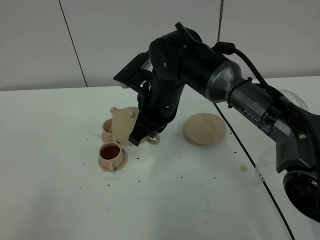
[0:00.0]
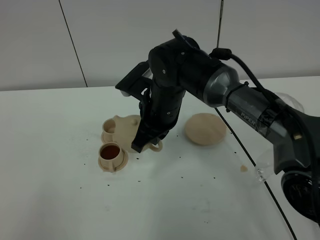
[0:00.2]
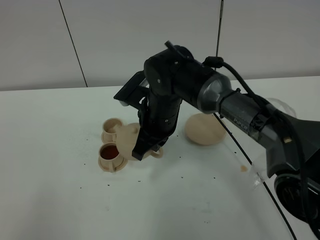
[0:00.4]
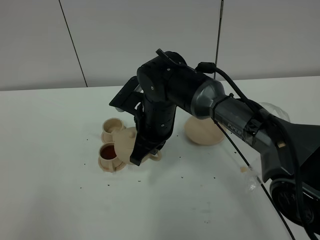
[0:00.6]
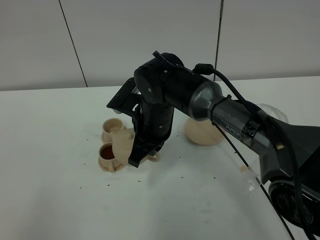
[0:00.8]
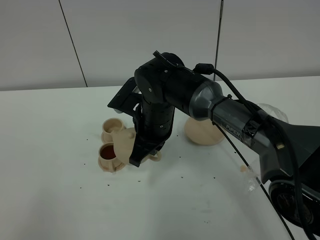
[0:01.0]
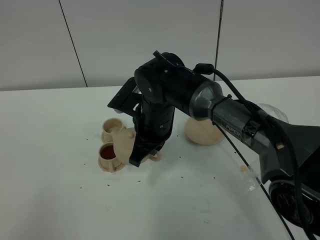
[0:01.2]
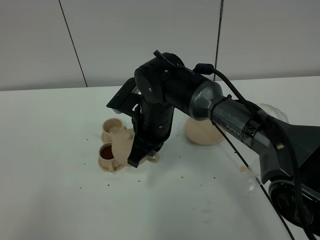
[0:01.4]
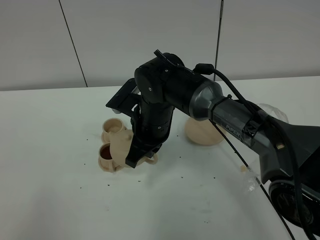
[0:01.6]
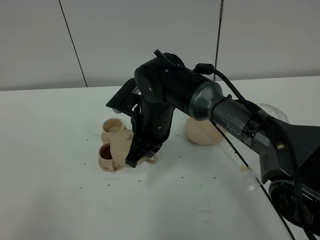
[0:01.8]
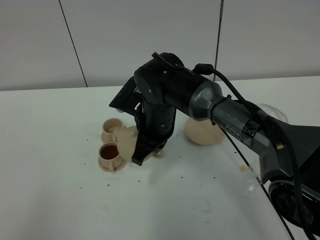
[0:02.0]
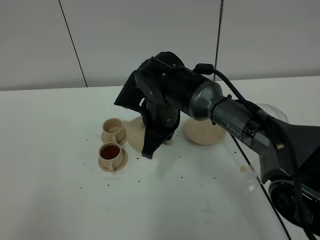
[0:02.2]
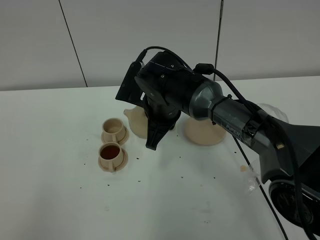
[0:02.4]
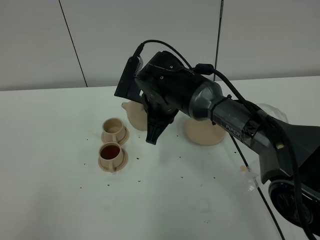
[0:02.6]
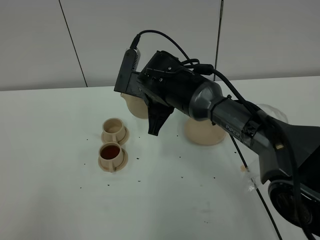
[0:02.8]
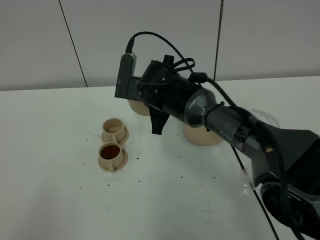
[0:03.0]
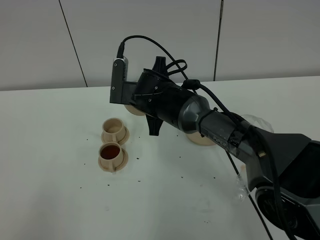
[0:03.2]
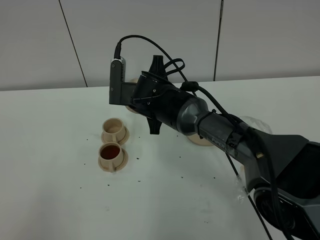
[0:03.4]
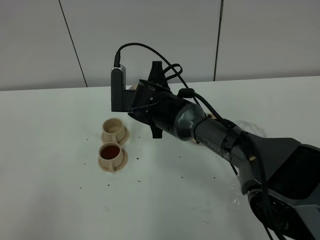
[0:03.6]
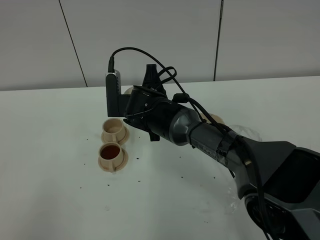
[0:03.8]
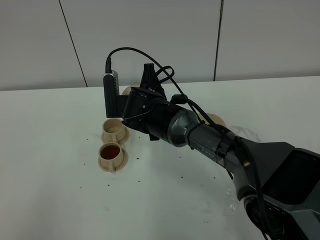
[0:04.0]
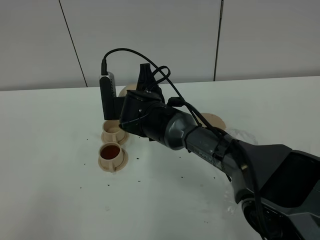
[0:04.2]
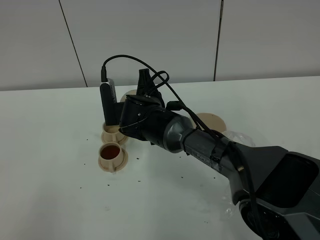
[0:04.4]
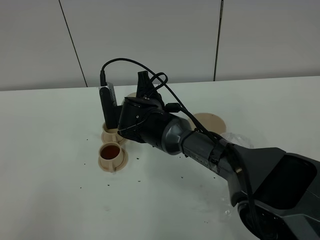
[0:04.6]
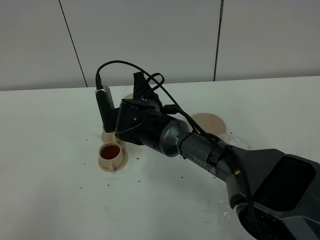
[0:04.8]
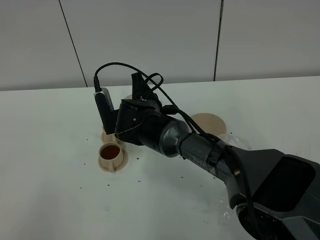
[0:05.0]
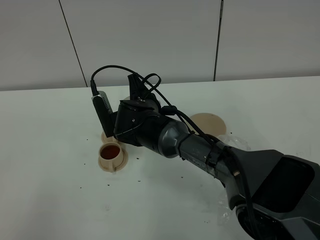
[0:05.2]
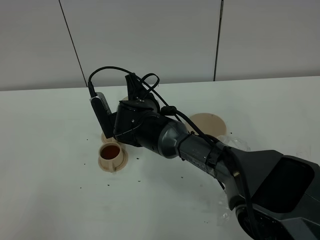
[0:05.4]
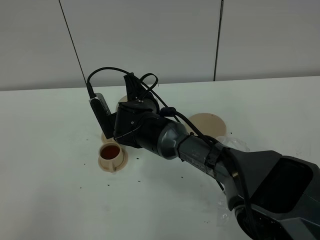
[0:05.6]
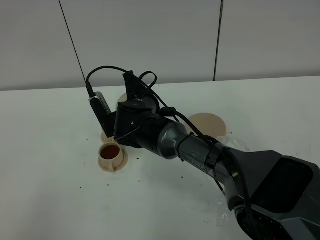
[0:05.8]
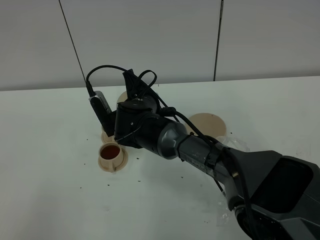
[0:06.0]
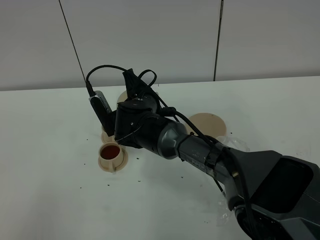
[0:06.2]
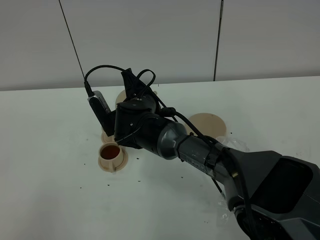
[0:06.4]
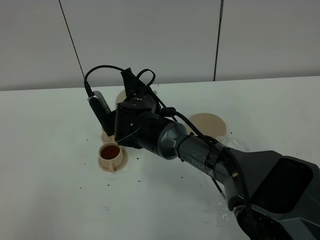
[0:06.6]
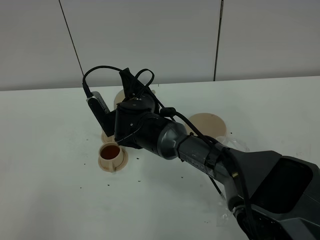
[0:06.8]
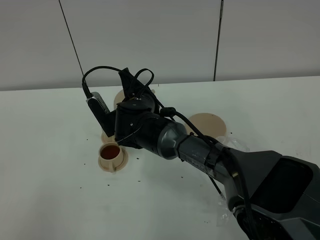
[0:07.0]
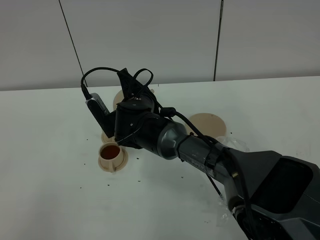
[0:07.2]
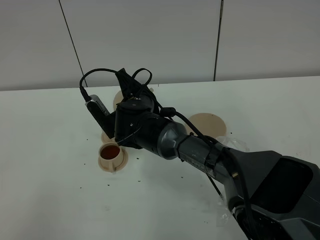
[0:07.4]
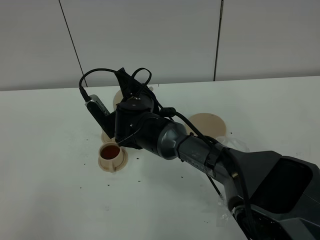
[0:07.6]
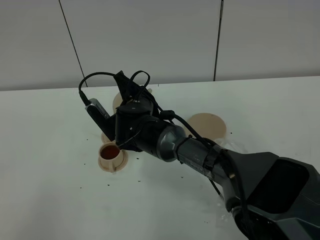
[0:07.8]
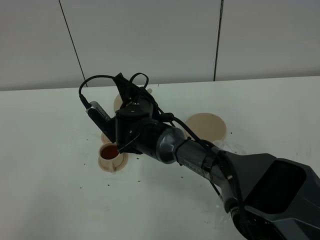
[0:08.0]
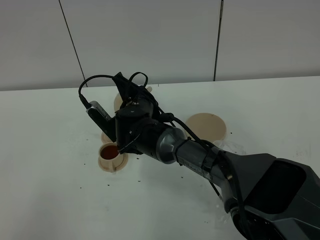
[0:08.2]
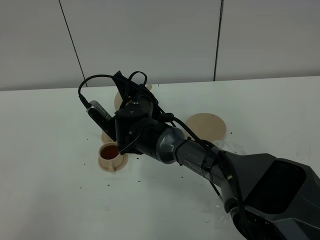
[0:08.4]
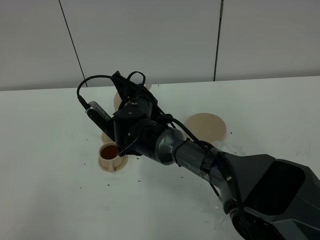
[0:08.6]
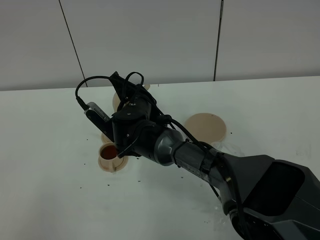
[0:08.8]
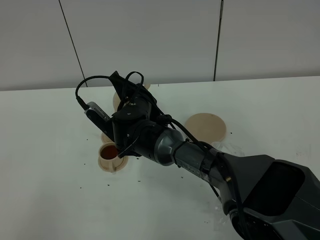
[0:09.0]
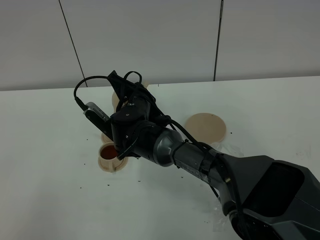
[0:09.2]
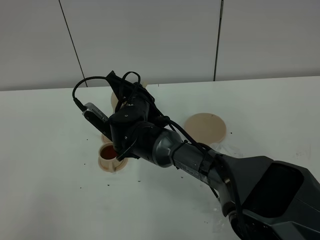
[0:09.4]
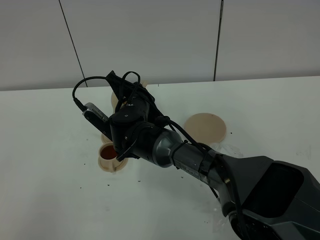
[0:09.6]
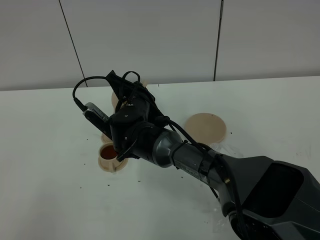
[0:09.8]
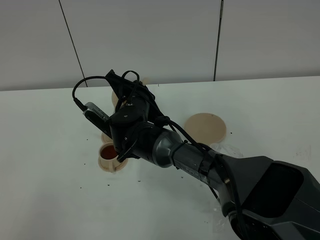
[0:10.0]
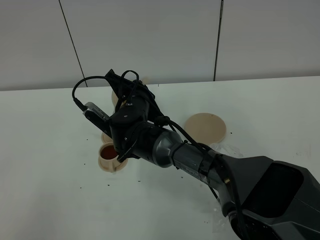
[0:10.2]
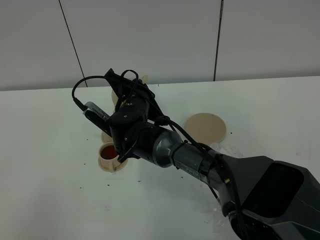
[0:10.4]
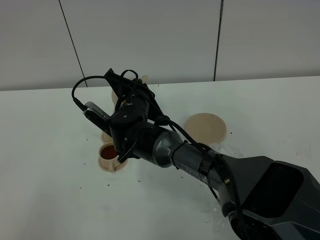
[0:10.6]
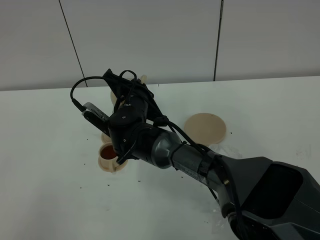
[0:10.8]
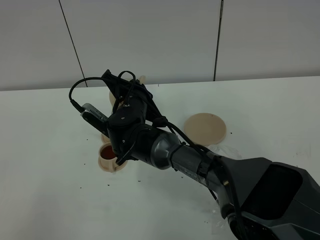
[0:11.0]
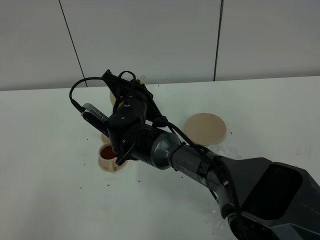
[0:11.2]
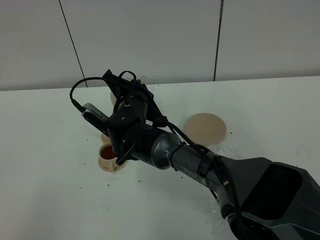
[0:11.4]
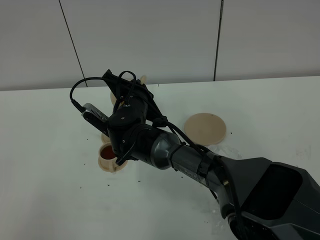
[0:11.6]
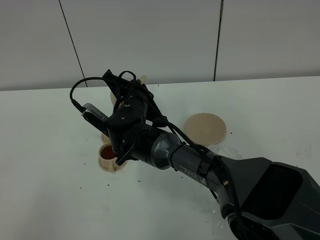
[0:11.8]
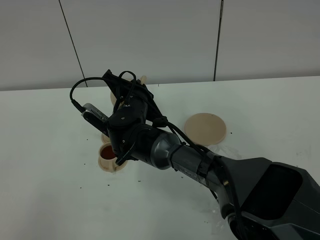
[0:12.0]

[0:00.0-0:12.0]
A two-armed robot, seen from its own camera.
Task of the whole recording: grasp the brown teapot and pour the tea into the two brown teacups one by one, put the brown teapot back in its original place.
0:00.0 to 0:01.6: The grippers make only small movements.
0:01.6 to 0:03.0: The right gripper moves forward, some 5 cm.
0:04.4 to 0:06.0: The grippers stay close to where they were, moving slightly.
0:06.0 to 0:09.0: The grippers make only small movements.
0:09.0 to 0:10.4: The grippers stay close to where they were, moving slightly.
0:10.4 to 0:12.0: Both grippers stay about where they are.

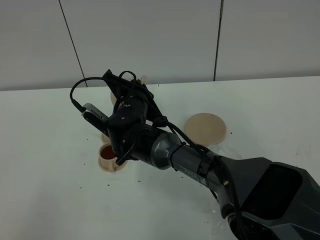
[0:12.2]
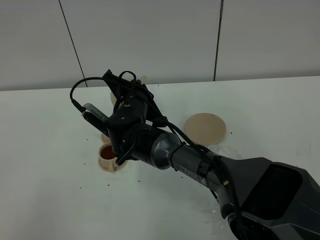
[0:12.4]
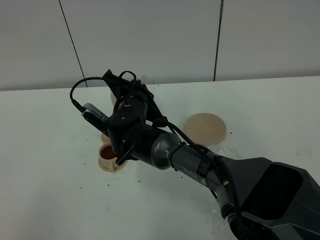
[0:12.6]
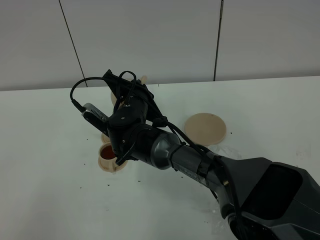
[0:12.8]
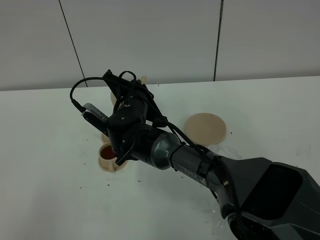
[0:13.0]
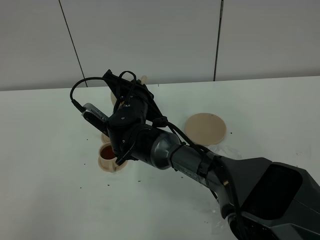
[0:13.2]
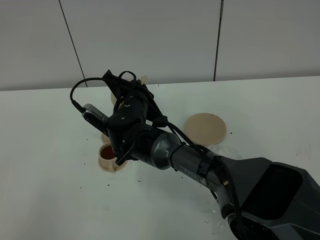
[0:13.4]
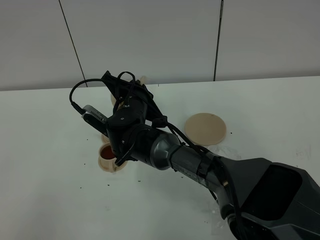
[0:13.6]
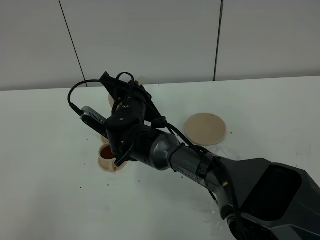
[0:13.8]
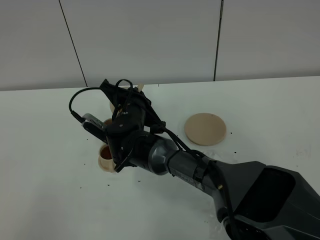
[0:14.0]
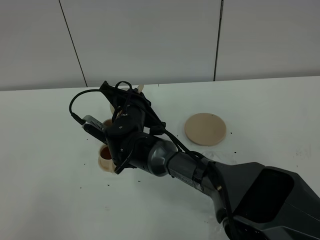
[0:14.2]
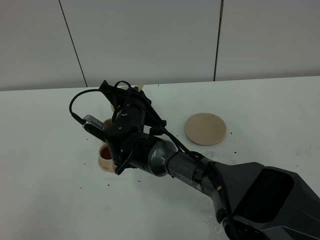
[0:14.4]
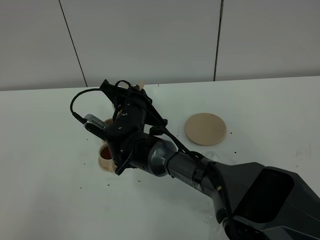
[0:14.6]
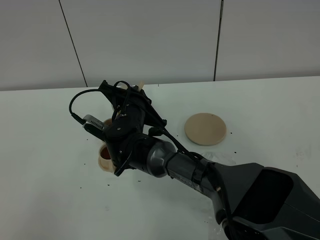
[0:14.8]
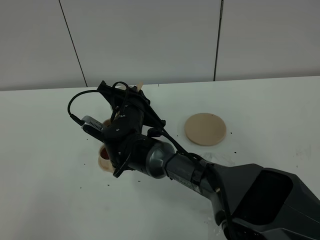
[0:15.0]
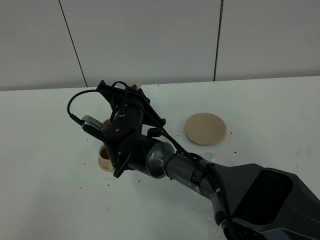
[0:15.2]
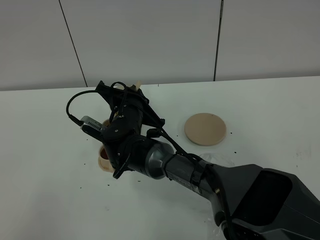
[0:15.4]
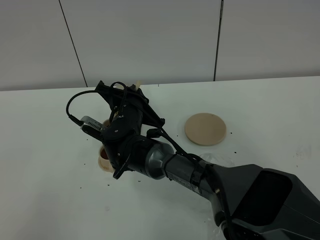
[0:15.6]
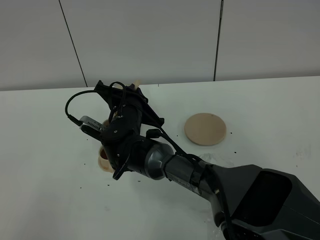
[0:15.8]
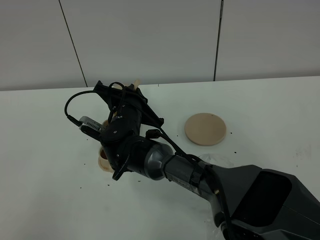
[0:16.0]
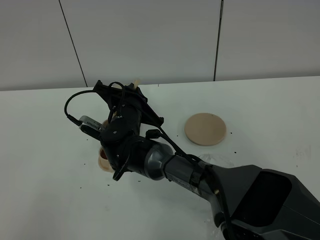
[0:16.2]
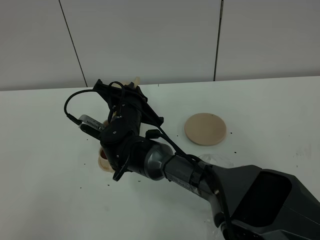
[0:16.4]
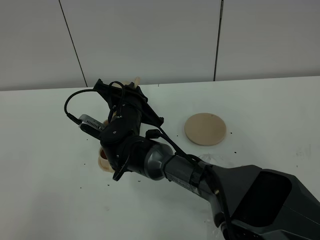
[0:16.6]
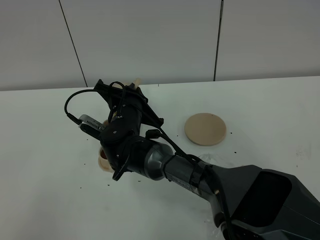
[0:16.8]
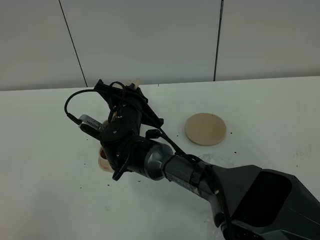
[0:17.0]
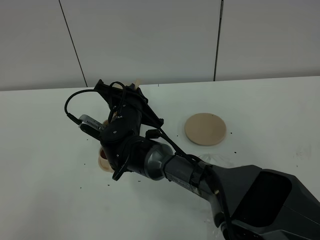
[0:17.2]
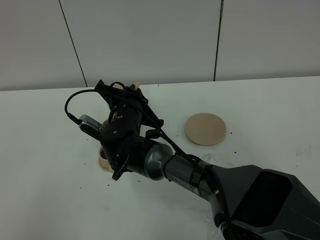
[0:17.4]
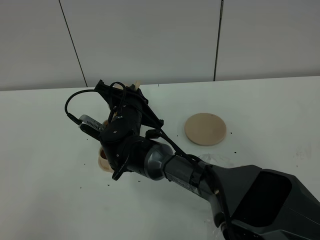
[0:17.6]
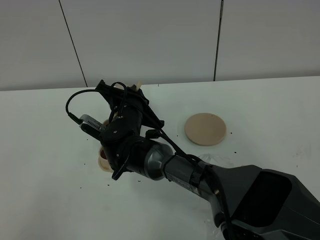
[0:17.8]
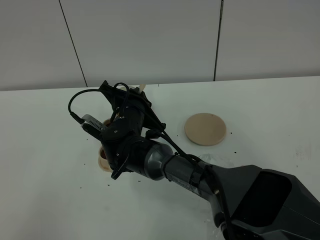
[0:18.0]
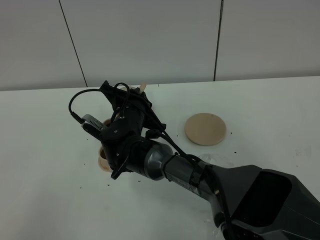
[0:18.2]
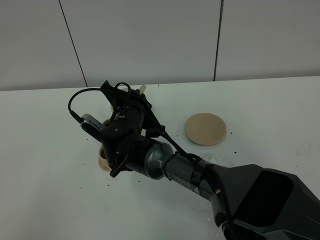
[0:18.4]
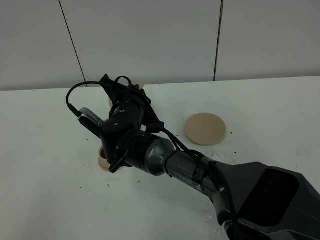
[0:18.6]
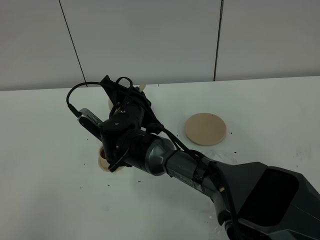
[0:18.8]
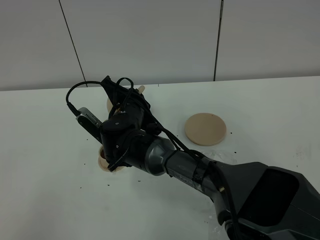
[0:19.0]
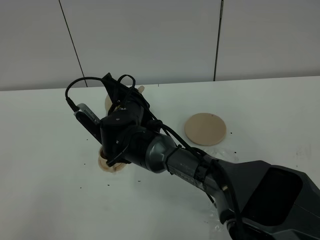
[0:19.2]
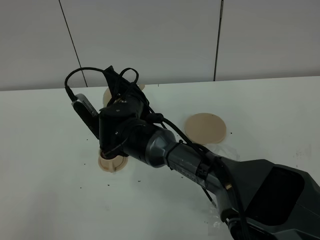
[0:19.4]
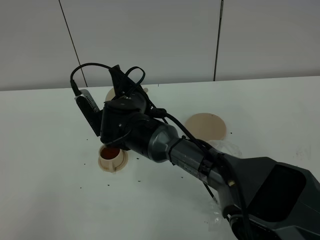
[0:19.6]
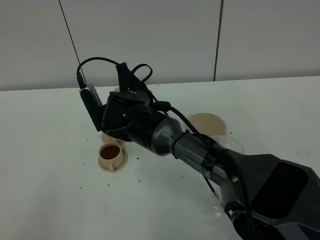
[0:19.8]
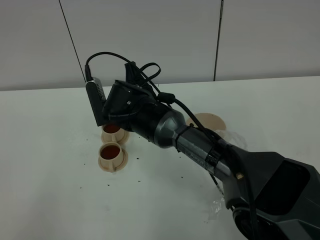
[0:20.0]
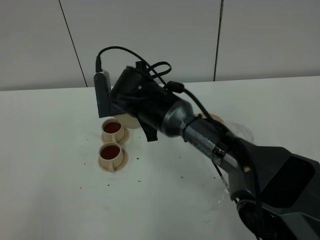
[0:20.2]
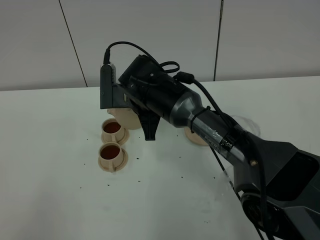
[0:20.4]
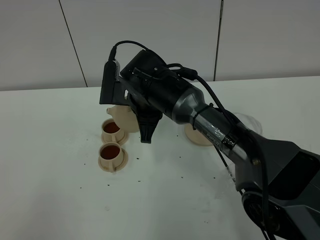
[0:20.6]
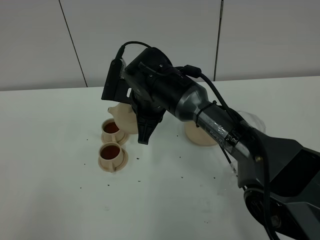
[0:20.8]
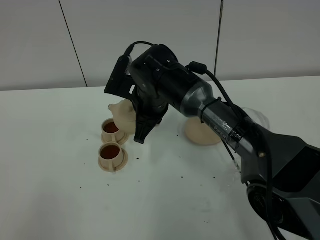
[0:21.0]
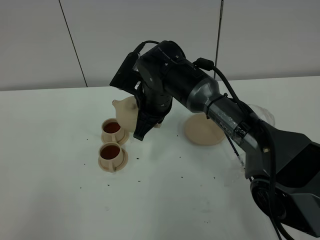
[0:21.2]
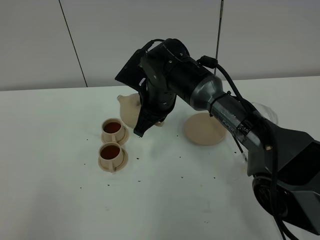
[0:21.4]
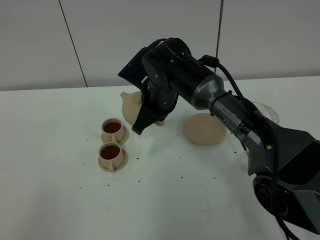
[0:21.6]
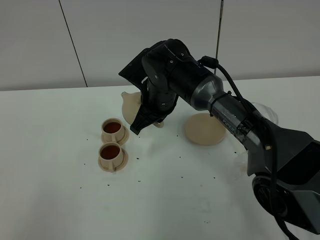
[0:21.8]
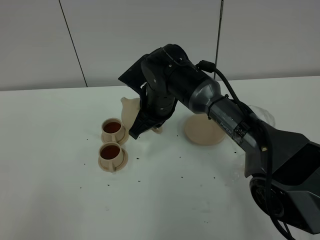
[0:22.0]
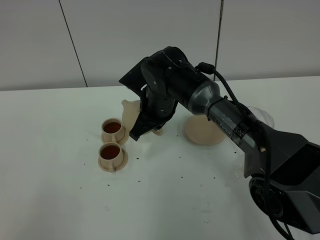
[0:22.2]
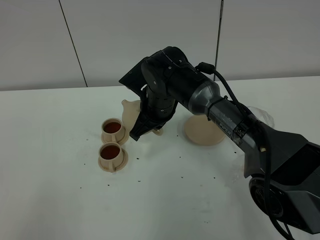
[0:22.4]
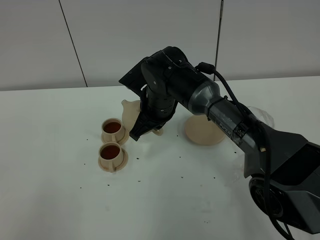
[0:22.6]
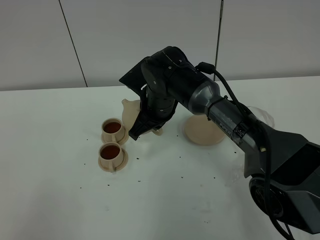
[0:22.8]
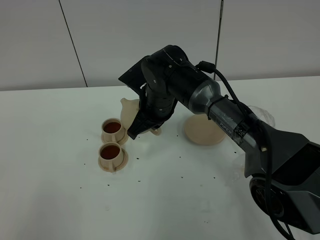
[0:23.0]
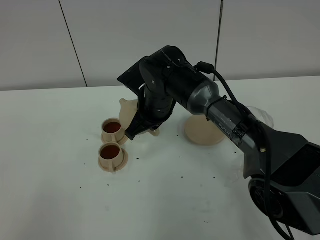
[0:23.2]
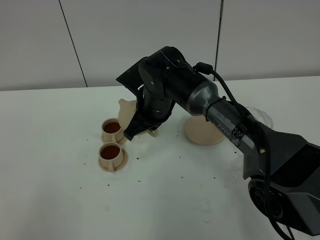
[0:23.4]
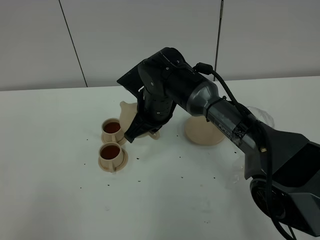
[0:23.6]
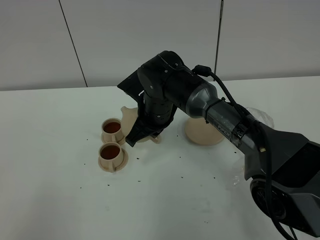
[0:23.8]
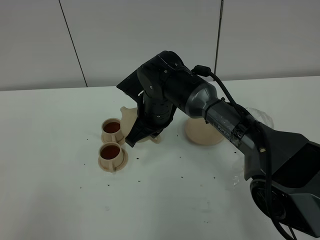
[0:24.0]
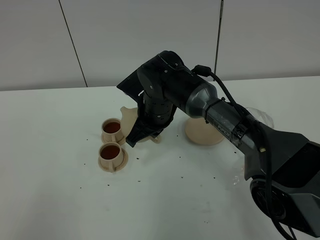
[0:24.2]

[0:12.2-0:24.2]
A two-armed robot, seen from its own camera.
Task of the whole recording: grasp the brown teapot and pour the tea into the two brown teacups one by one, put the brown teapot back in its original place.
Step, 0:12.2 to 0:19.8: Pour tea into the teacup with the right gripper.
0:12.2 to 0:13.8: Both grippers stay put.
0:13.8 to 0:15.2: The grippers make only small movements.
0:15.2 to 0:16.6: The two grippers keep their place.
0:16.6 to 0:18.2: The grippers make only small movements.
0:19.8 to 0:21.2: The right gripper shifts by about 5 cm.
0:21.2 to 0:22.6: The grippers move only a little.
0:22.6 to 0:24.2: Both grippers stay put.
